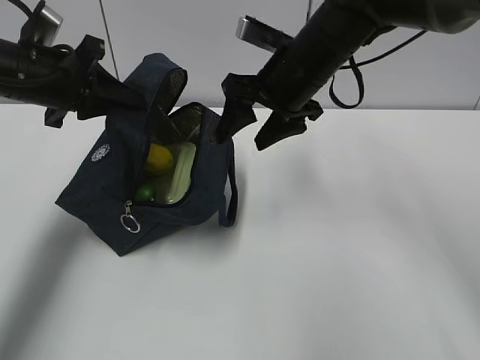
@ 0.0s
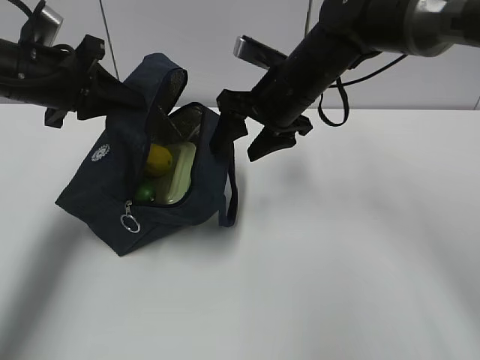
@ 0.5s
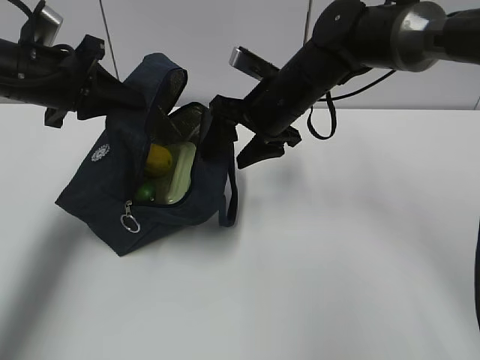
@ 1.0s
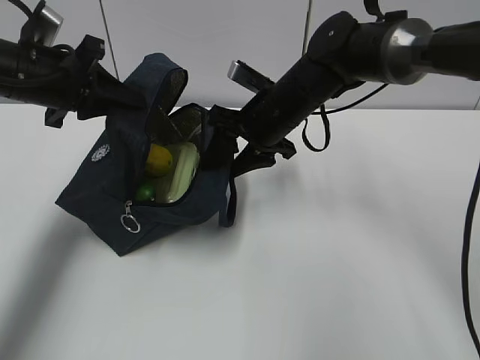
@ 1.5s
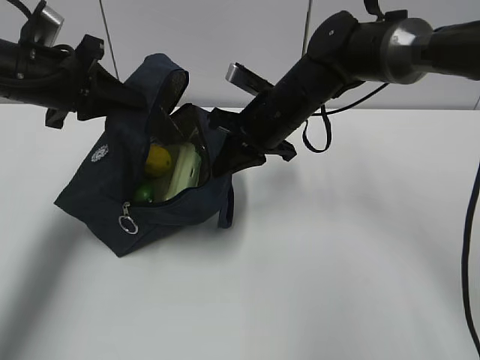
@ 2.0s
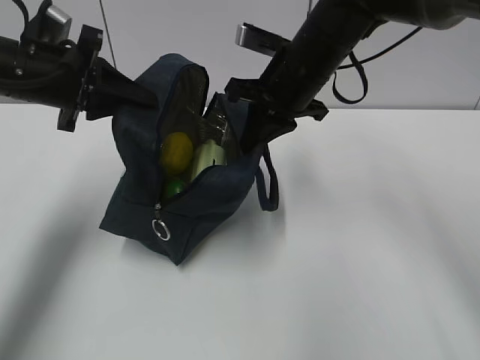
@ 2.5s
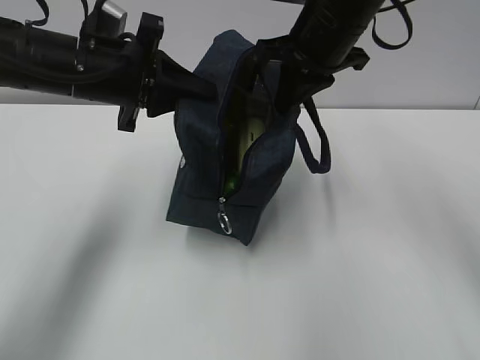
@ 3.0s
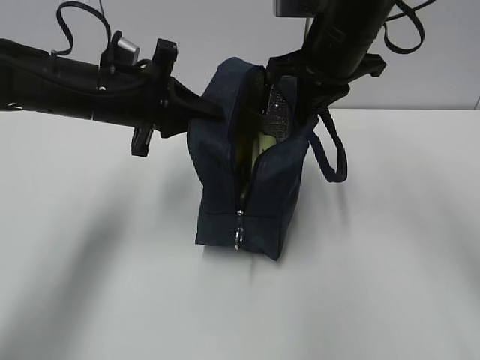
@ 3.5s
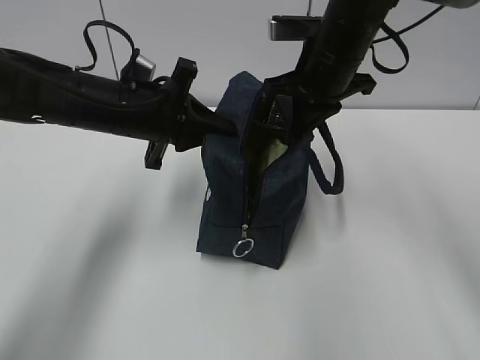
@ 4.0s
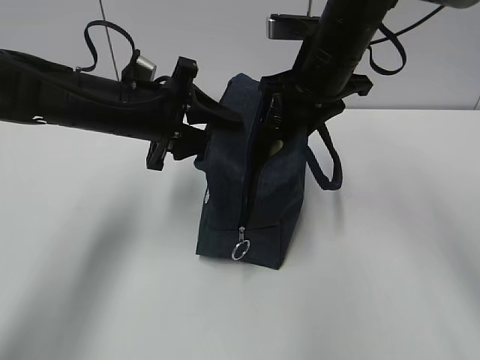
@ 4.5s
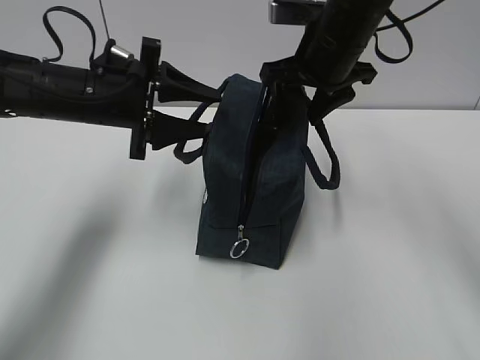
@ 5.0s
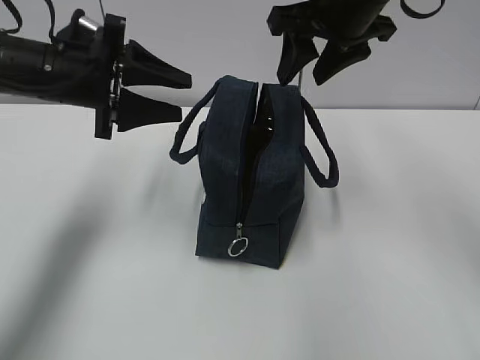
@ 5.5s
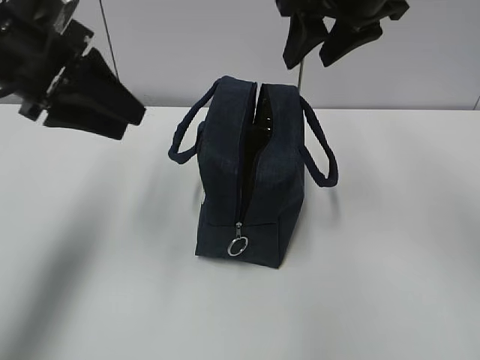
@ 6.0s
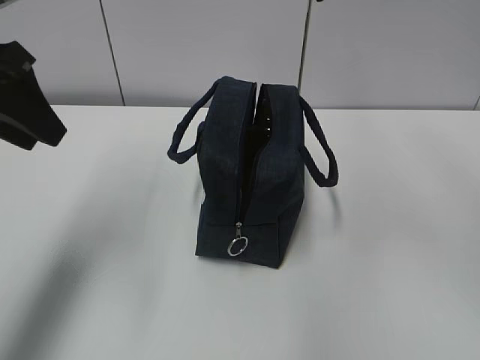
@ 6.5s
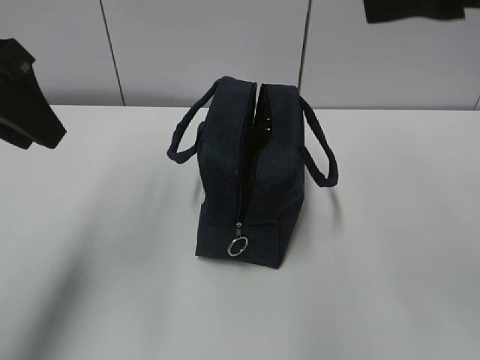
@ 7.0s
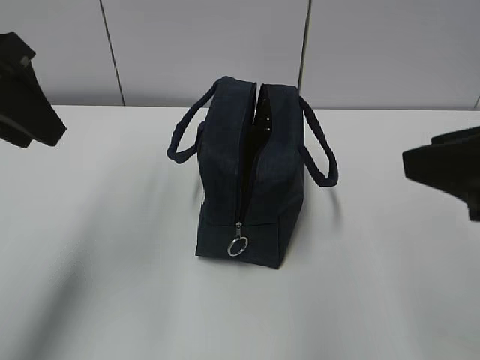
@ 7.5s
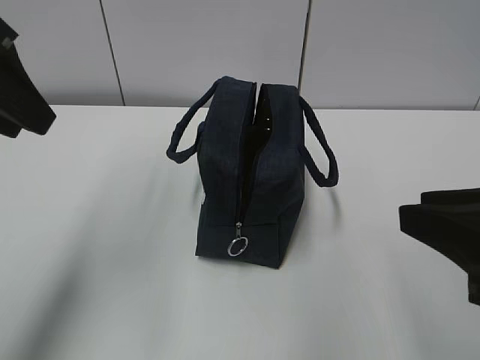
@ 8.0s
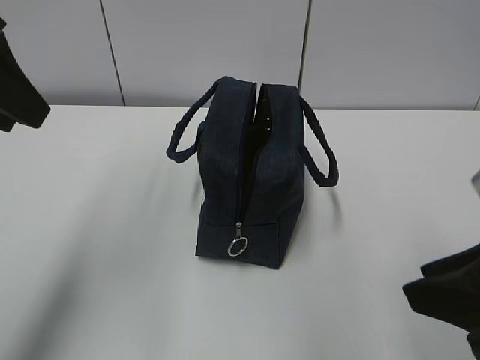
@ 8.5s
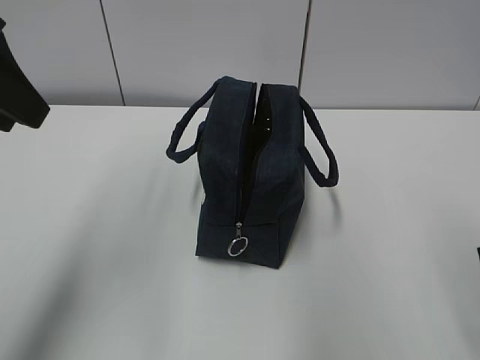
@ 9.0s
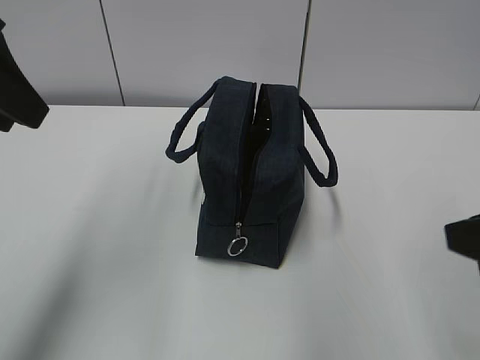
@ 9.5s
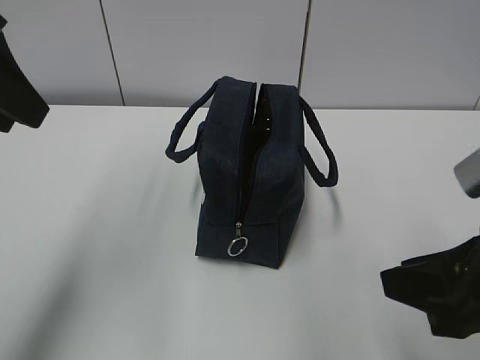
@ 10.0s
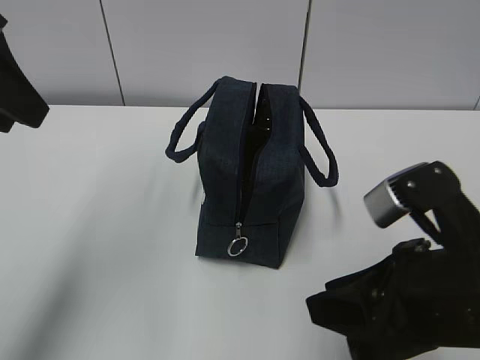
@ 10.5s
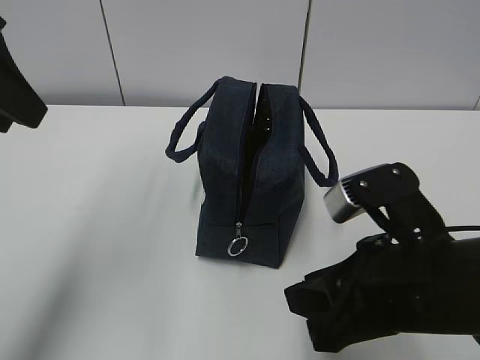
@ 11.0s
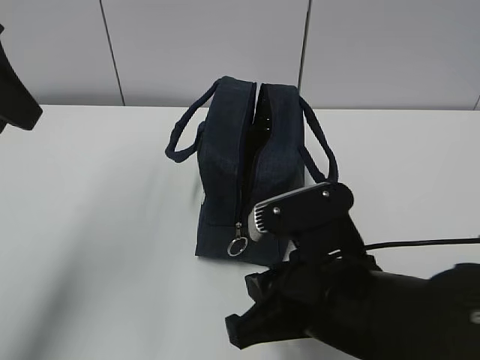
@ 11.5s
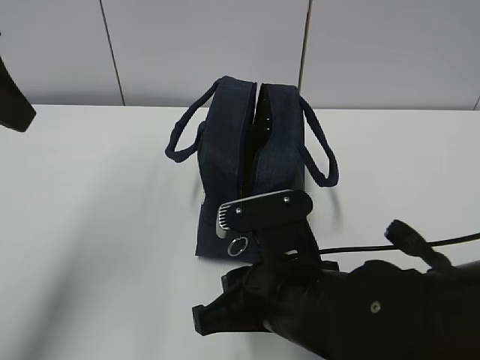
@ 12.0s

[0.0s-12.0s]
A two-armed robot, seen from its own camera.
0.0s to 2.0s: The right gripper heads downward, covering about 5 cm, and closes up.
2.0s to 4.0s: The right gripper goes some 10 cm upward and to the right, while the left gripper travels to the right by about 10 cm.
4.0s to 6.0s: The left gripper moves upward and to the left, about 10 cm, and opens up. Meanwhile the right gripper shifts roughly 10 cm upward, and opens.
6.0s to 8.0s: The right gripper goes approximately 25 cm backward; the left gripper is displaced backward and upward by about 10 cm.
10.0s to 12.0s: The right gripper goes roughly 20 cm to the left and downward.

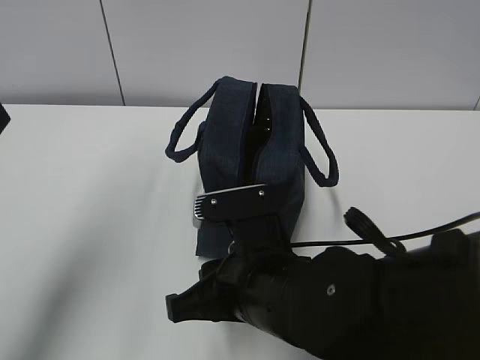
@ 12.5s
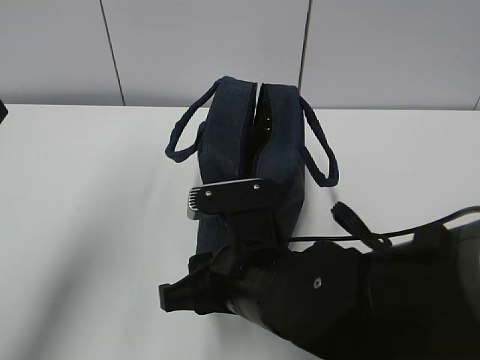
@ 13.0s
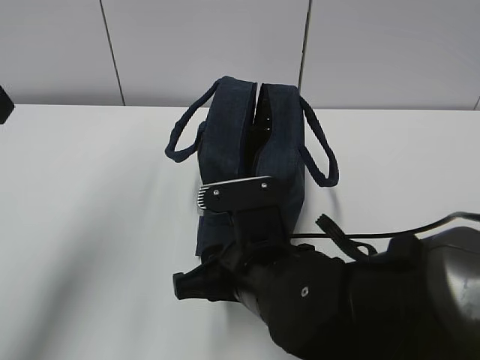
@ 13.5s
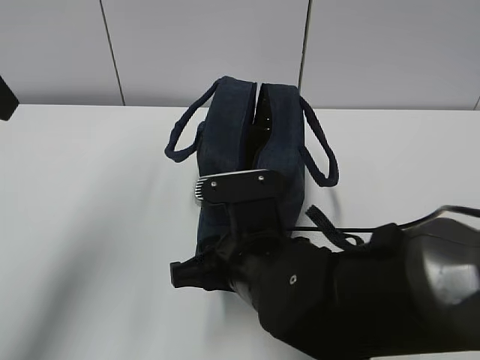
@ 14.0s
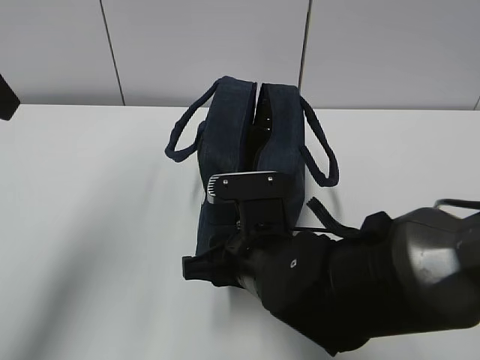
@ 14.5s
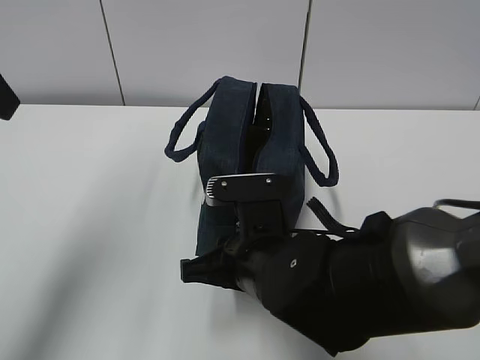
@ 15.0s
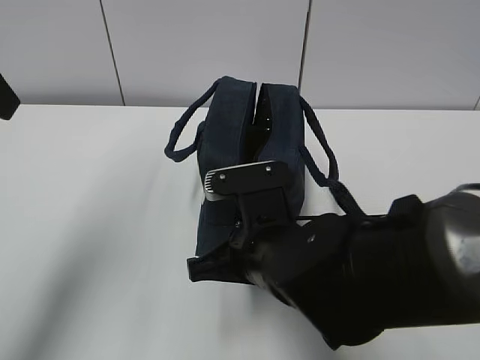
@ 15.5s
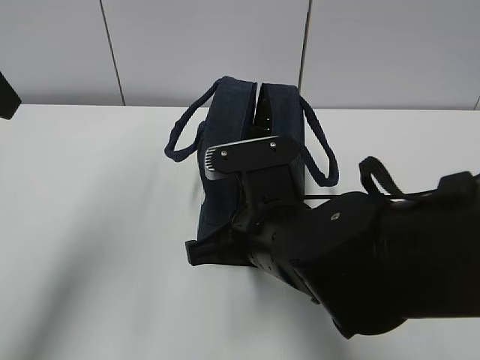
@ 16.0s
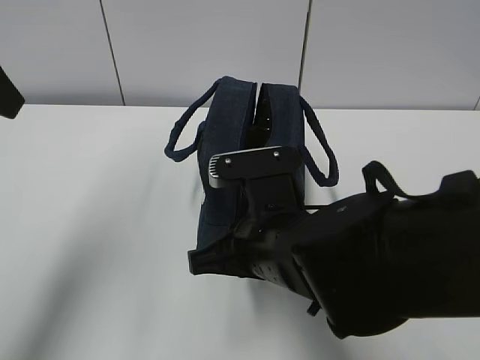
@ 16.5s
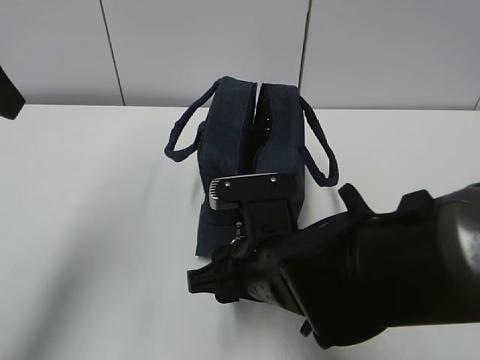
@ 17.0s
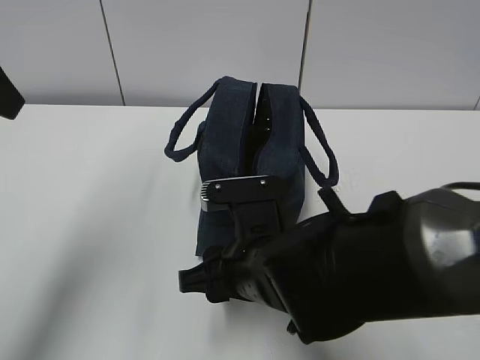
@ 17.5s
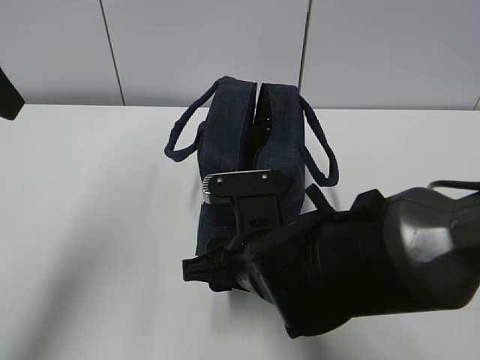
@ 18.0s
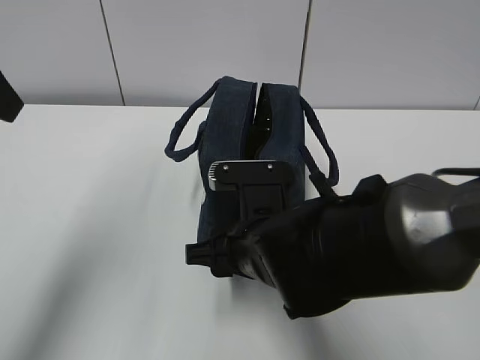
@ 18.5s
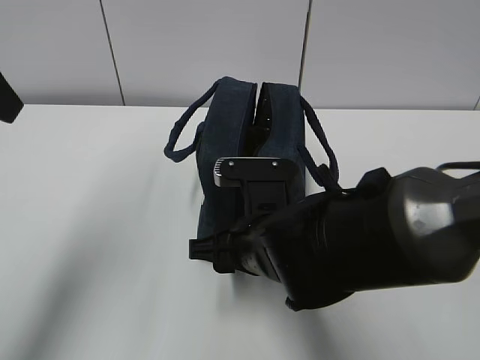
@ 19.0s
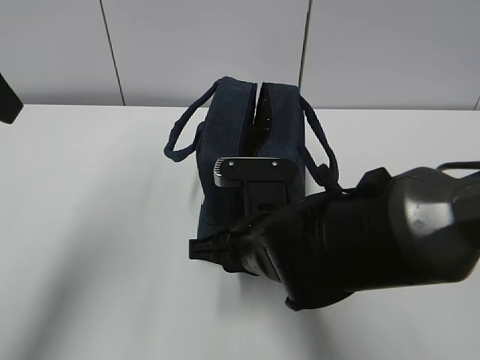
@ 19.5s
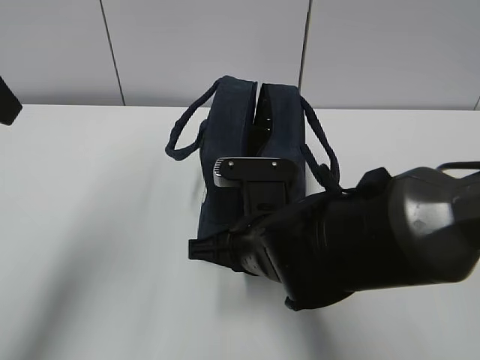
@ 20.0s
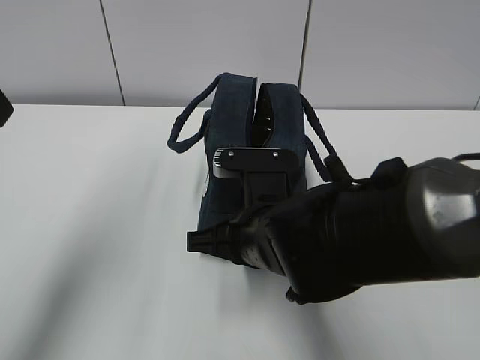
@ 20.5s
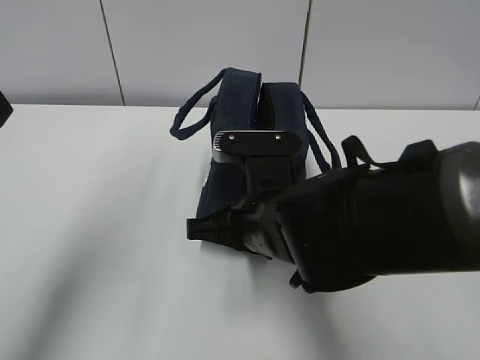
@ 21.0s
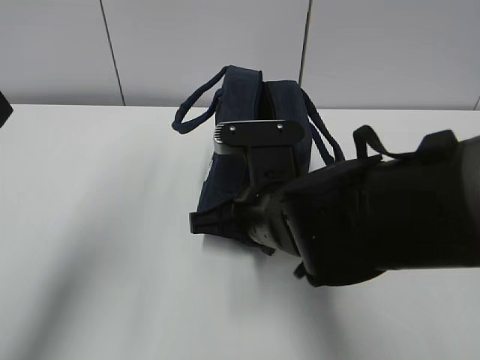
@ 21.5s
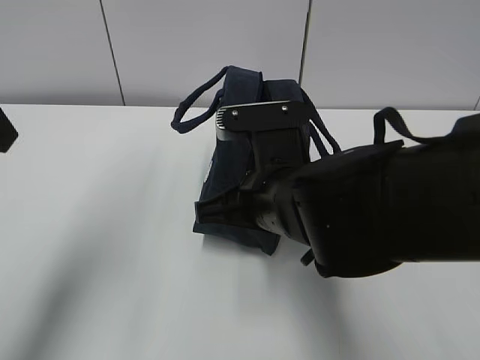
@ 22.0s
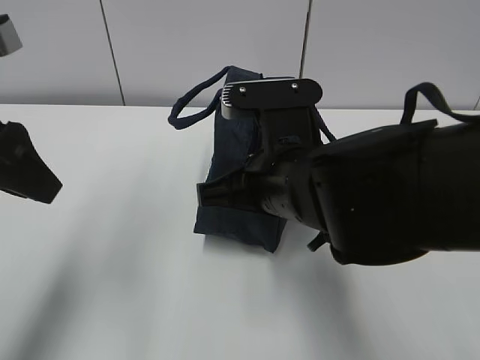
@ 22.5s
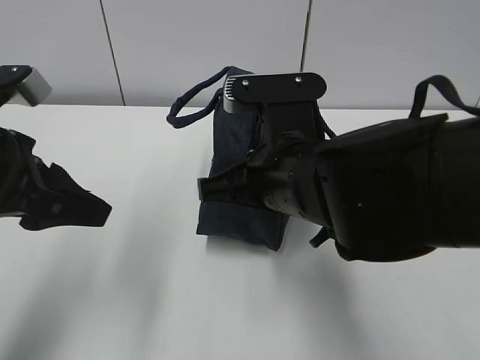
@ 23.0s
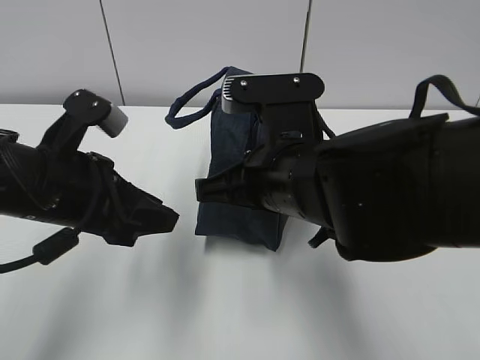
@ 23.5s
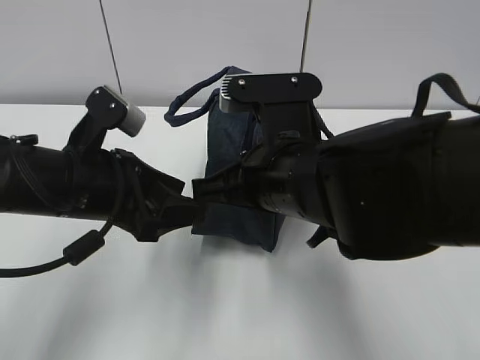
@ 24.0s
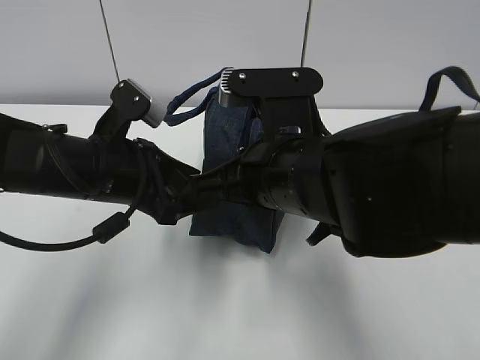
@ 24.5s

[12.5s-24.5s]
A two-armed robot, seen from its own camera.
Step, 12.5s to 23.0s: Grab the lunch bag with your left hand.
12.5s to 14.5s: There are only small adjustments of the grippers.
14.5s to 16.5s: The right gripper closes up.
16.5s to 18.5s: The right gripper opens up.
18.5s to 20.5s: The right gripper closes.
20.5s to 22.5s: The right gripper is displaced upward by roughly 5 cm; the left gripper shifts some 5 cm downward.
22.5s to 24.5s: The left gripper moves downward and to the right, some 15 cm, and opens.

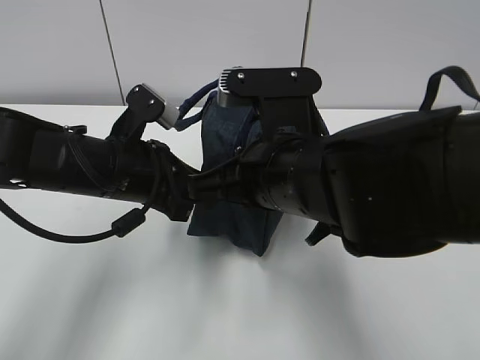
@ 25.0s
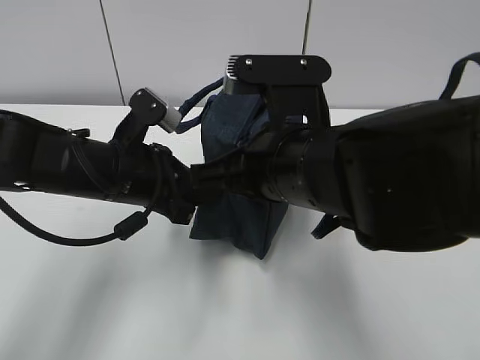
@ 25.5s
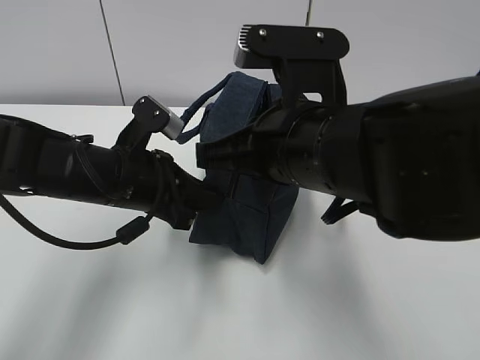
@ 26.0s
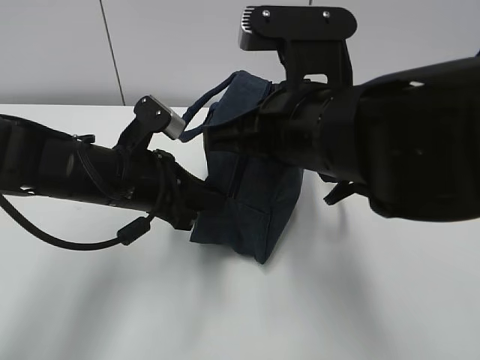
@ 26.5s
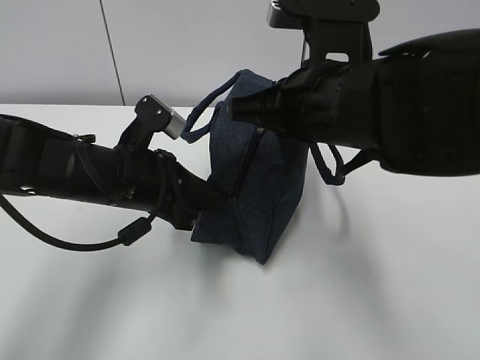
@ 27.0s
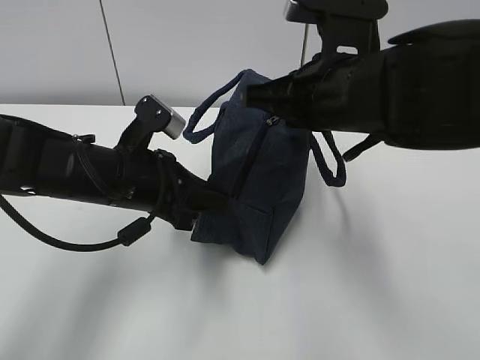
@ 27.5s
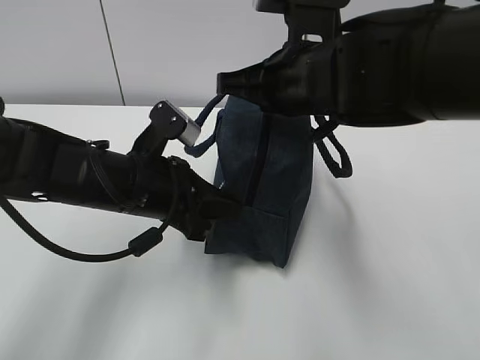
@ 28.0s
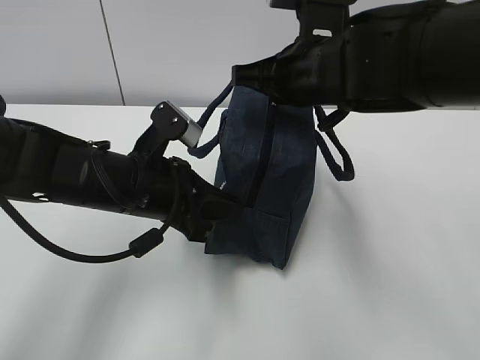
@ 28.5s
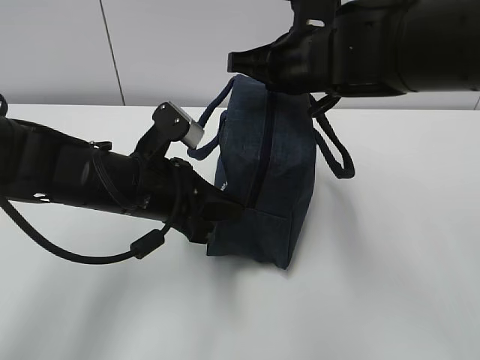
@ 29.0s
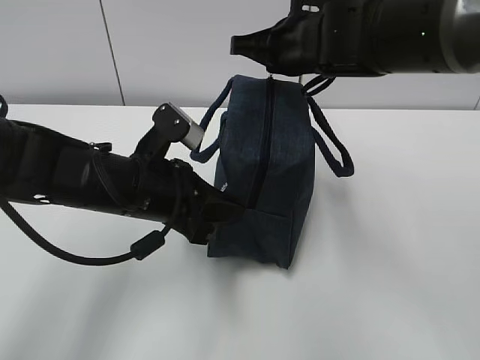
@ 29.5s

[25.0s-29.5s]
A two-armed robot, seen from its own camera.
25.0s to 27.0s: The right gripper moves about 5 cm.
27.0s to 29.5s: The right gripper shifts approximately 15 cm forward.
